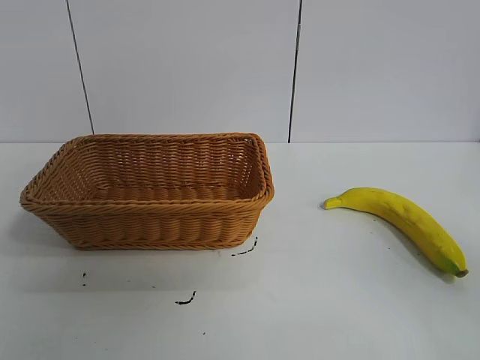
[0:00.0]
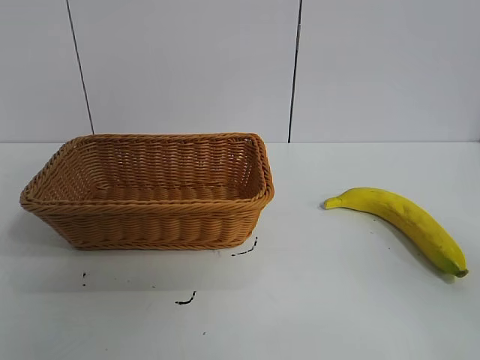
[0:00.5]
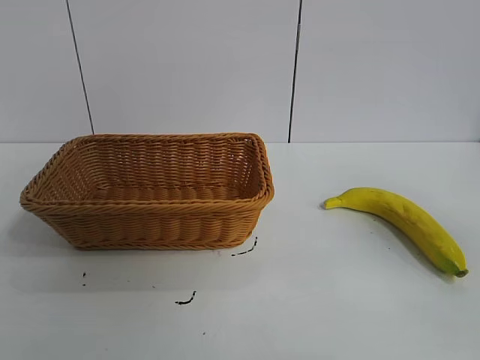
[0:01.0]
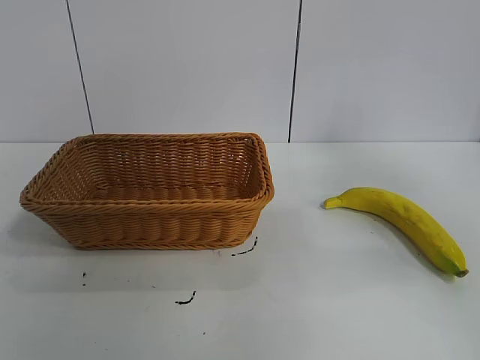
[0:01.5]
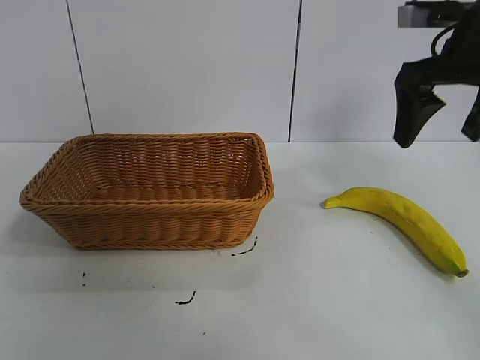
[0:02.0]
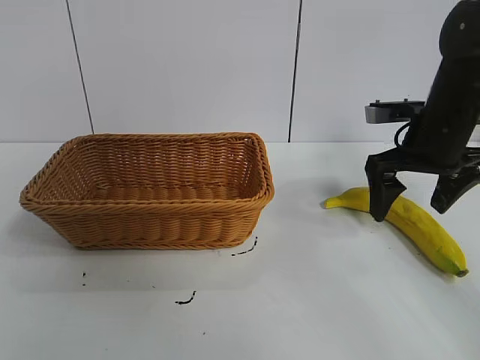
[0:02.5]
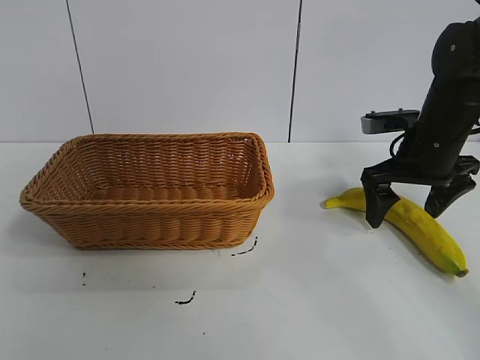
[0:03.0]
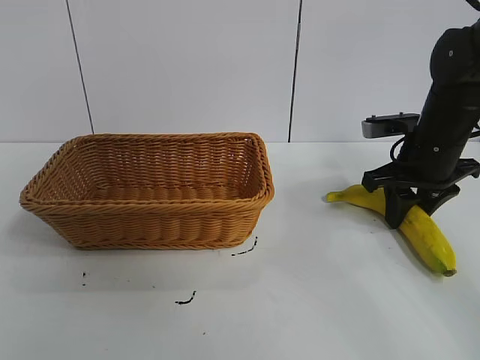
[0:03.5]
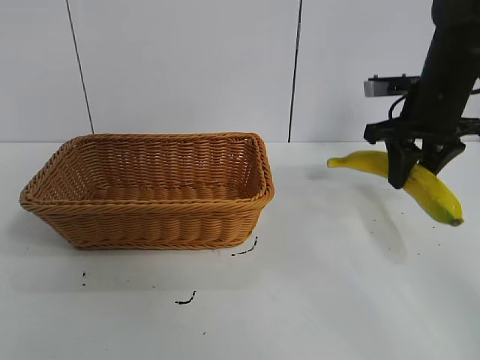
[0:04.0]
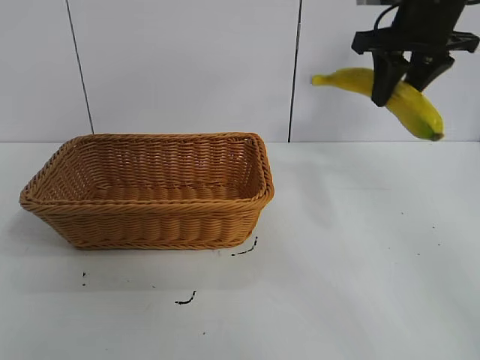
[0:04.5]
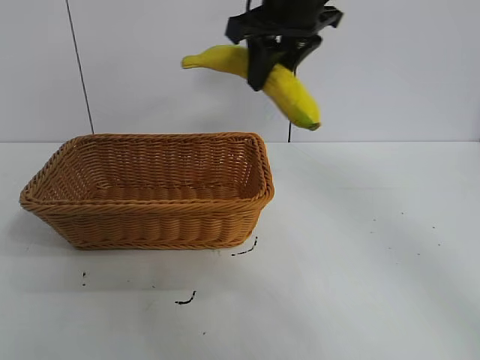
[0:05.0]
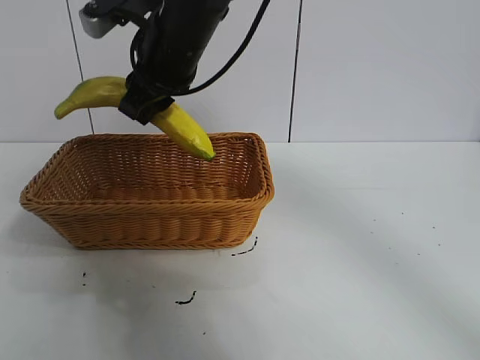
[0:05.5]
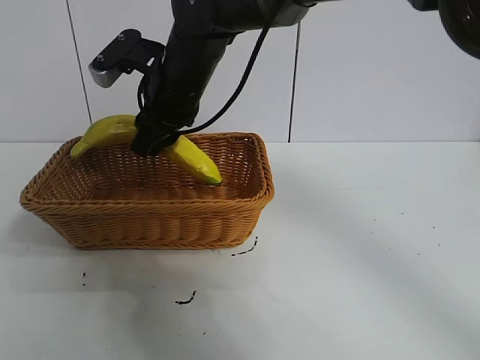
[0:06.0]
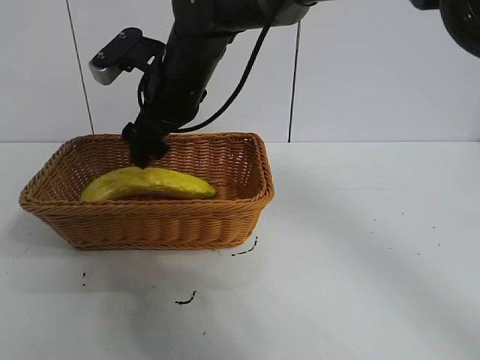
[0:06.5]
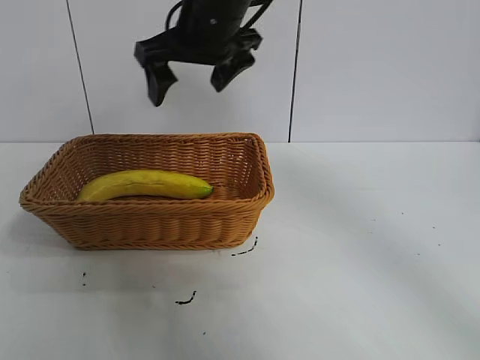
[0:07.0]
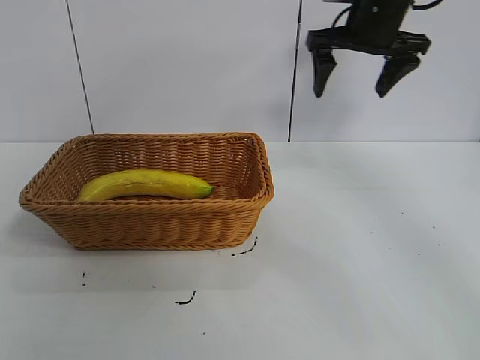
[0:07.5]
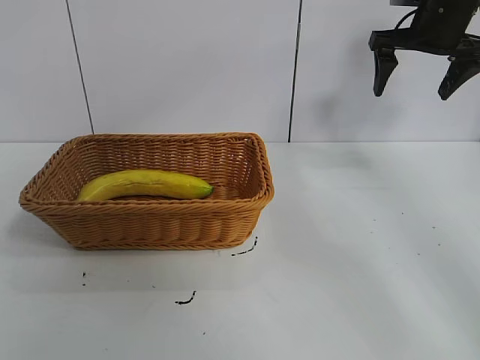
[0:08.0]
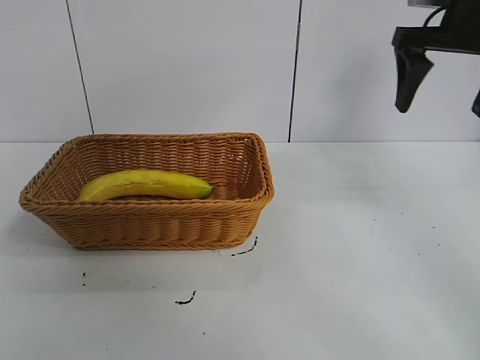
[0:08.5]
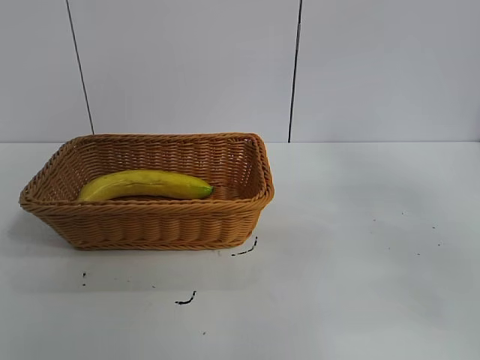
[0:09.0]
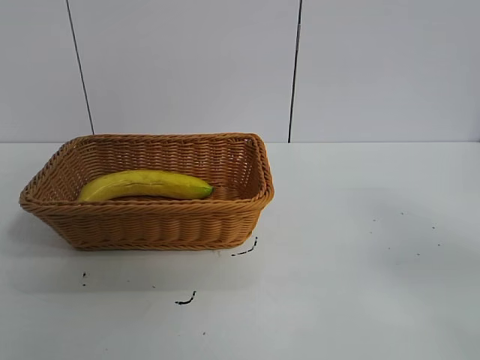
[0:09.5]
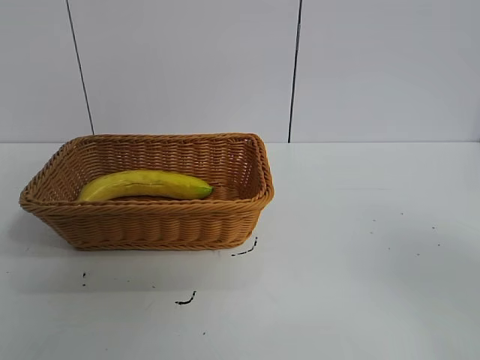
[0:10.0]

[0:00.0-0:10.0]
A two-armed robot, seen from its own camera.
Task of the whole recording: pick up the banana and put it into the basket.
Step, 0:01.0 to 0:03.5: Grasp the banana with right gripper.
Step, 0:04.0 to 0:06.0: Place the banana in the basket with right gripper.

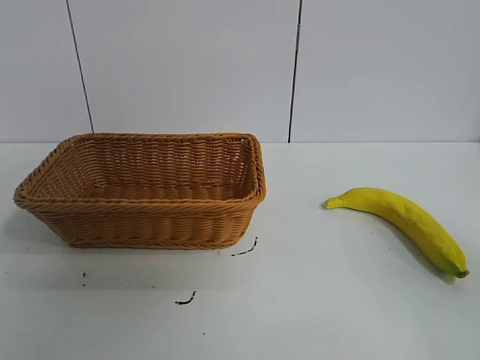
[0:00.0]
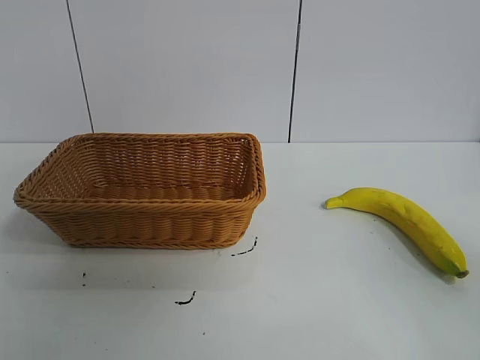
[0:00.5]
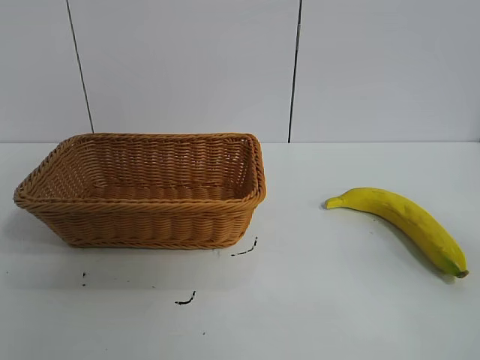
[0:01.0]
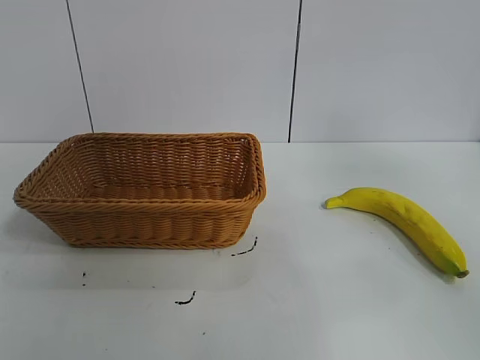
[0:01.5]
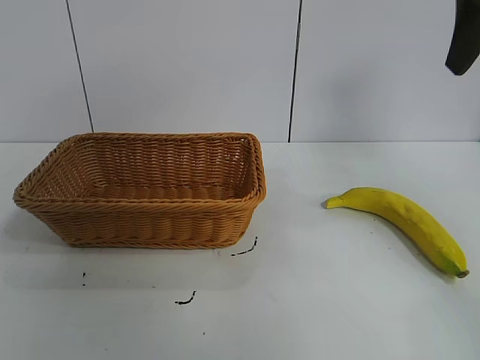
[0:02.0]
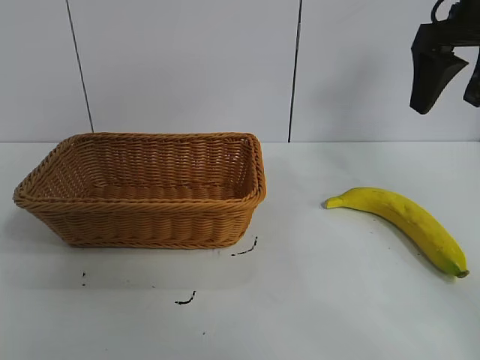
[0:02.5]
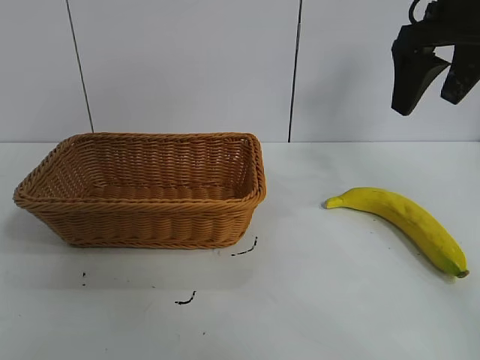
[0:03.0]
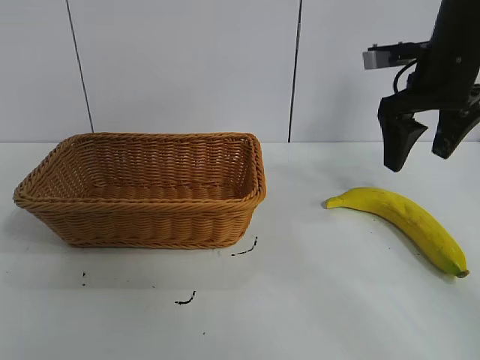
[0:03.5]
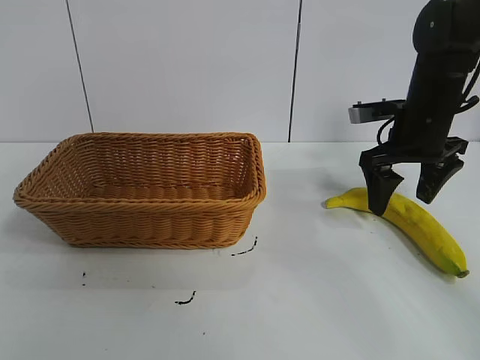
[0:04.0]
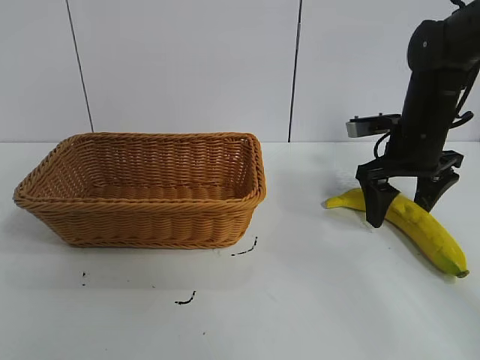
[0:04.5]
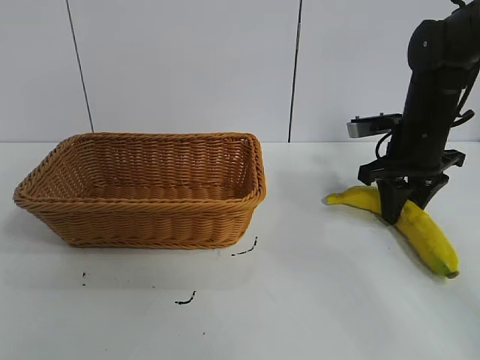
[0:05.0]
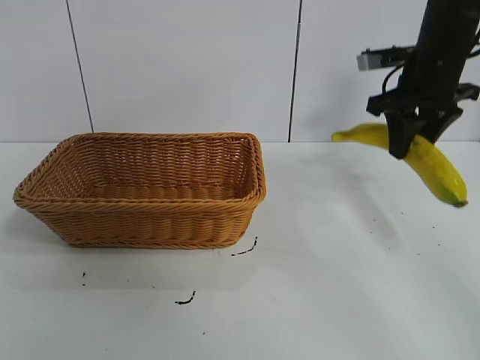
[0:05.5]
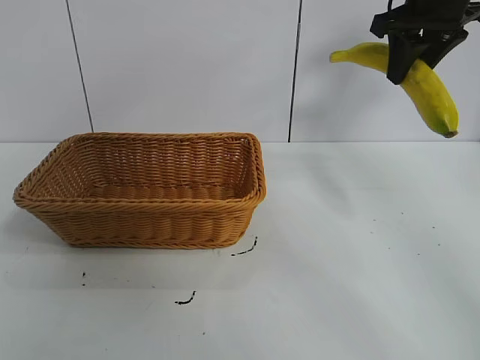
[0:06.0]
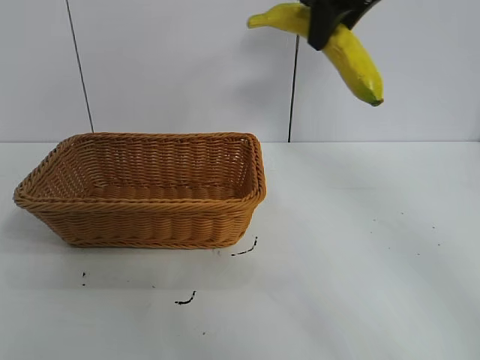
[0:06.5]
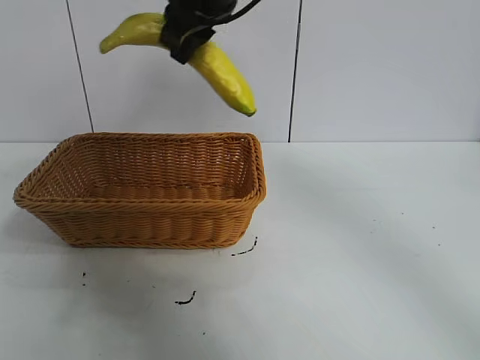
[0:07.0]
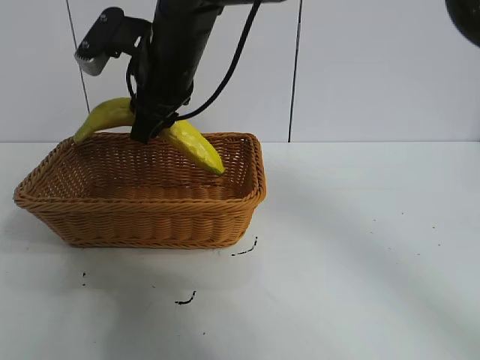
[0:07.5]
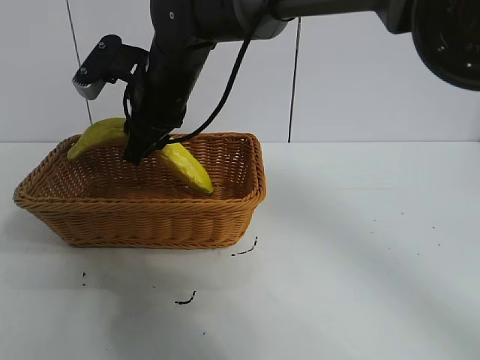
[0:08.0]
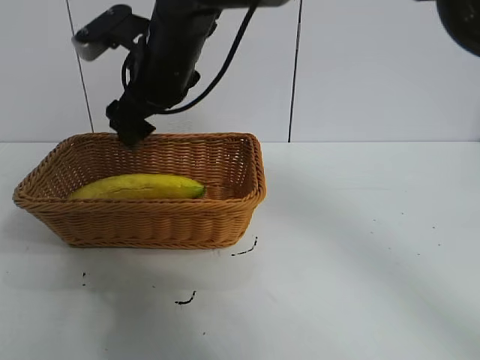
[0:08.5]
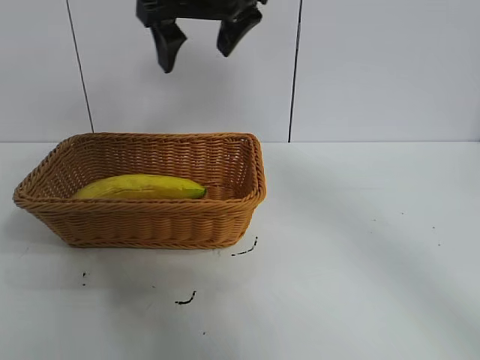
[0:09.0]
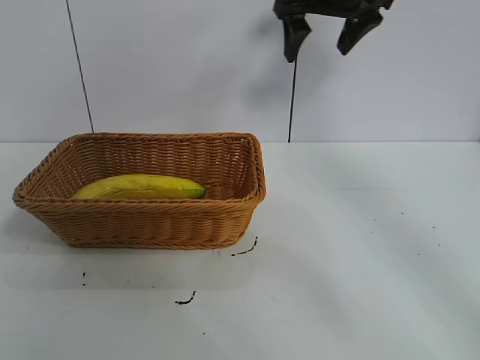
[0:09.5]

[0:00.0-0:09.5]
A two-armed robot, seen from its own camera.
Task of the whole recording: pick up the banana and put it into the basket.
Step, 0:01.0 to 0:05.0: Grasp the banana with right gripper.
Step, 0:05.5 to 0:08.0: Place the banana in the basket with right gripper.
